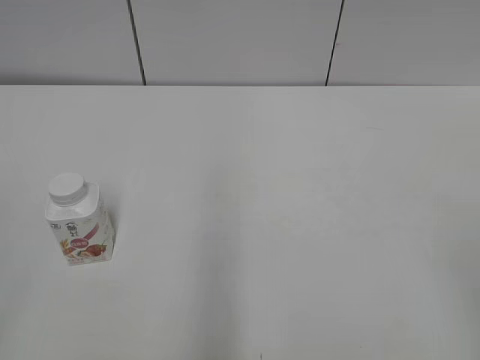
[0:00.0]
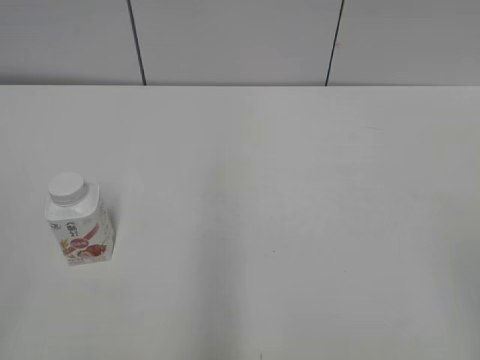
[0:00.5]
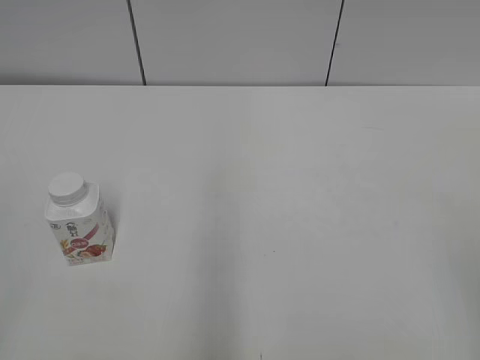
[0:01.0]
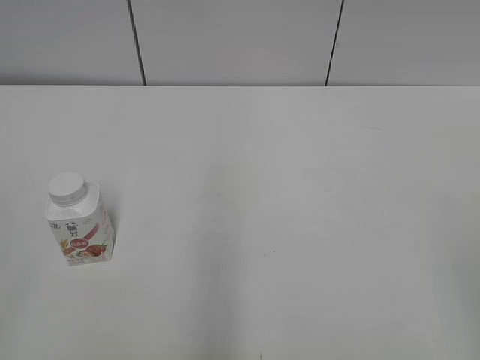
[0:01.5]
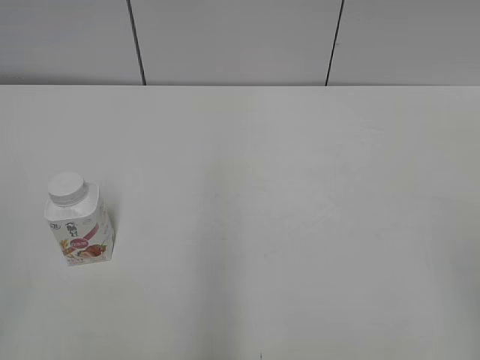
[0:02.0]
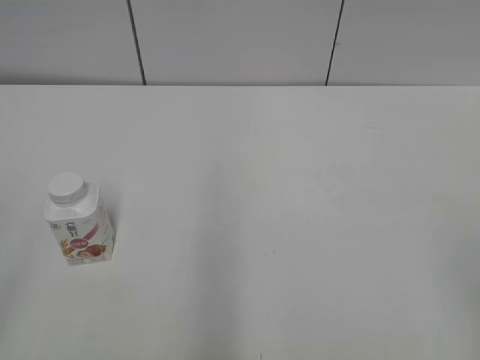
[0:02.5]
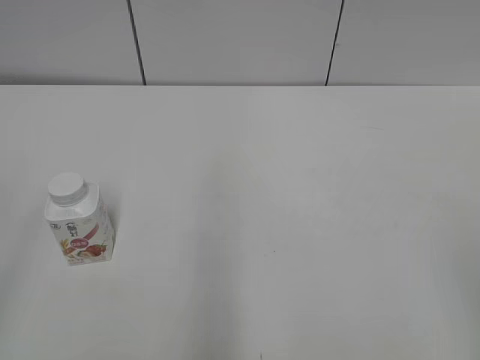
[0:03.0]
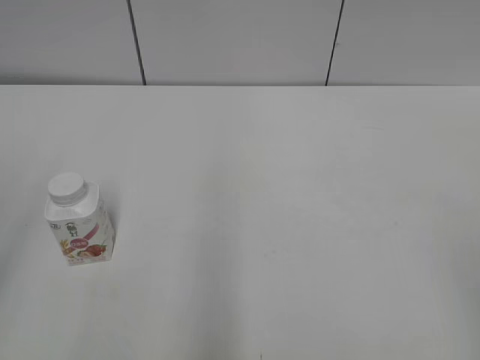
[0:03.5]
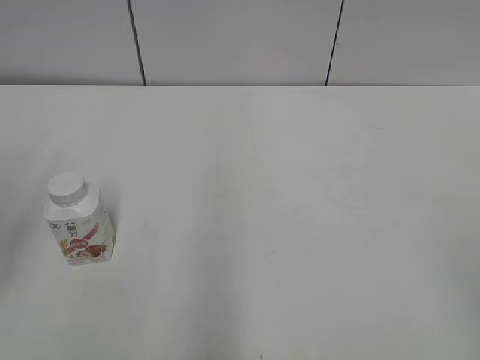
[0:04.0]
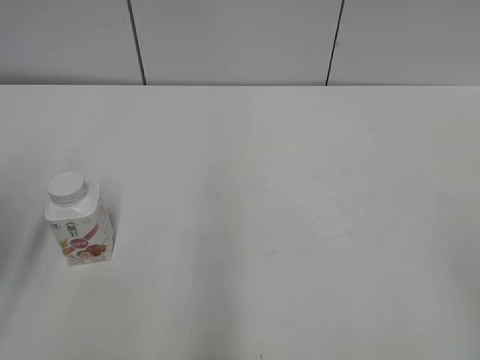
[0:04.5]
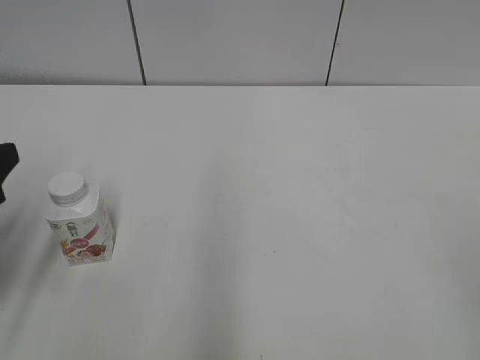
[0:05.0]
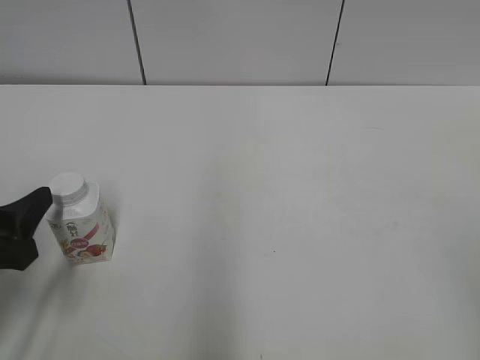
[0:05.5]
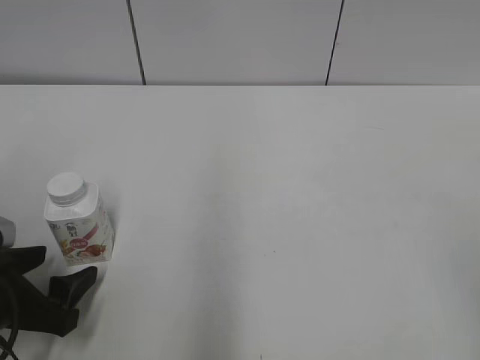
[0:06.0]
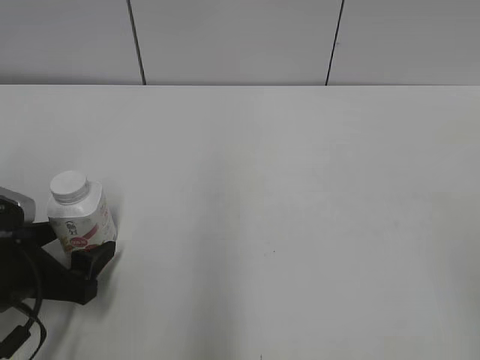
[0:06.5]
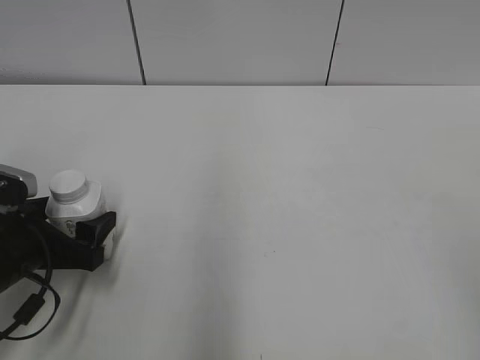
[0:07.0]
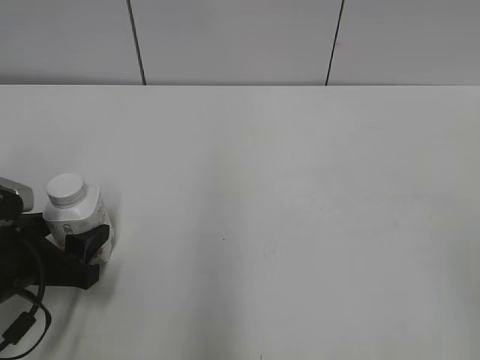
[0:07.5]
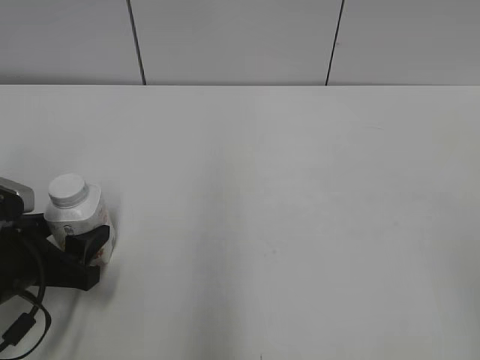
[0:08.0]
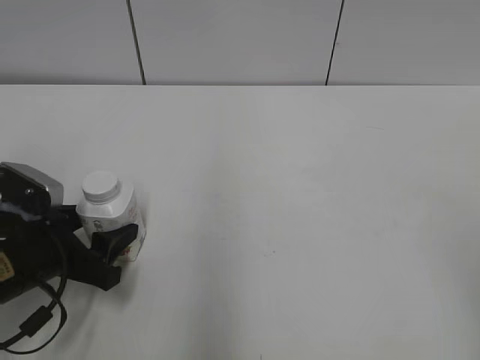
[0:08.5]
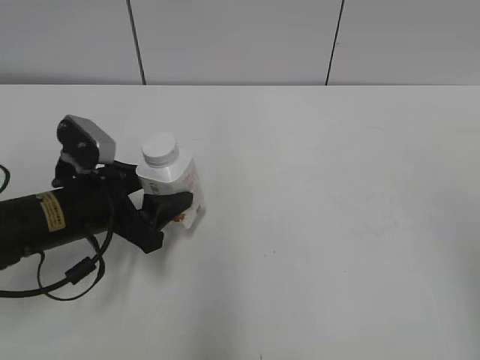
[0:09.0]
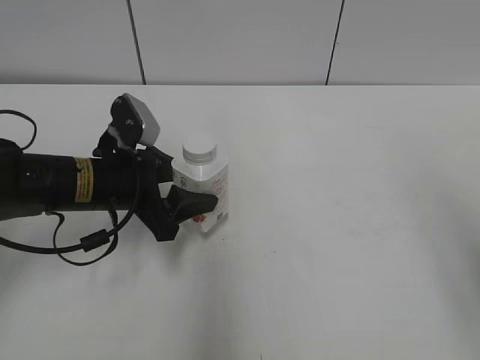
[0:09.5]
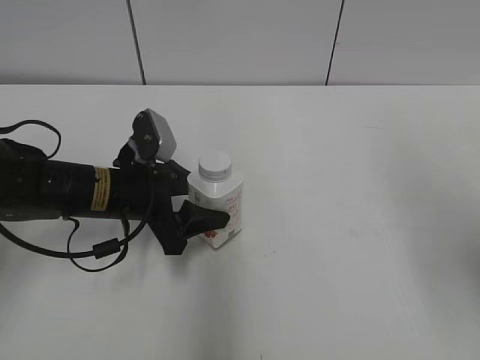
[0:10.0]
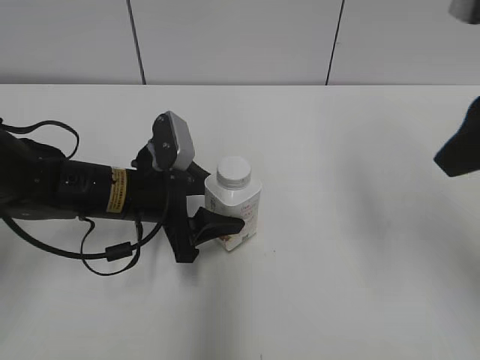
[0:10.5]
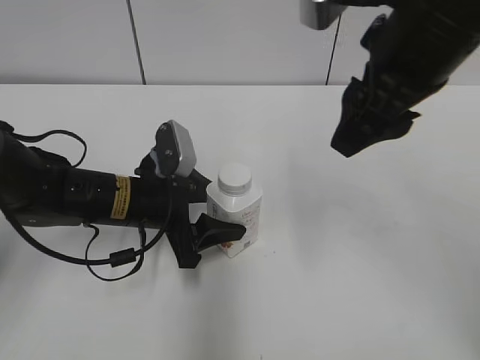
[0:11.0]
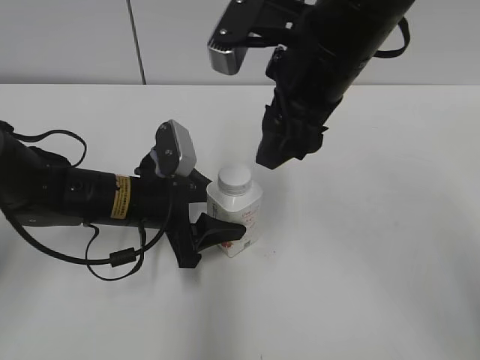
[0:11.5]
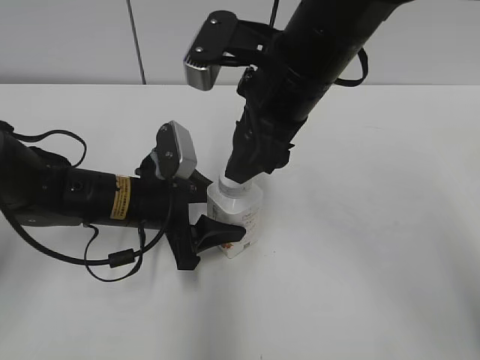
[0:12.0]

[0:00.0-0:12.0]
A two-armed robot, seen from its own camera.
Step, 0:00.0 to 0:08.0: Grab the Yili Changqing with the left hand.
Step, 0:08.5 to 0:11.0: Move the Yili Changqing from top to bottom.
0:04.0 to 0:06.0: The left gripper shifts some 20 cm downward.
0:06.0 to 0:08.0: There are only small adjustments of the grippers.
0:08.0 to 0:10.0: The left gripper shifts some 15 cm forward and to the right. Meanwhile the right gripper travels forward and upward by about 15 cm.
0:10.0 to 0:12.0: The right gripper travels to the left and forward by about 25 cm, and closes up.

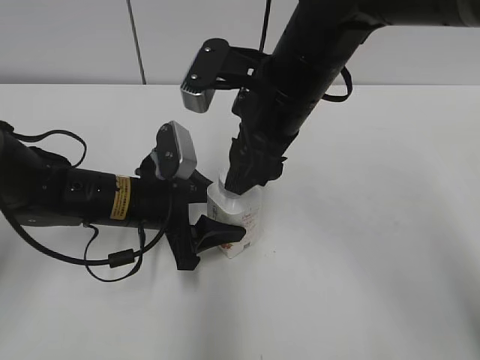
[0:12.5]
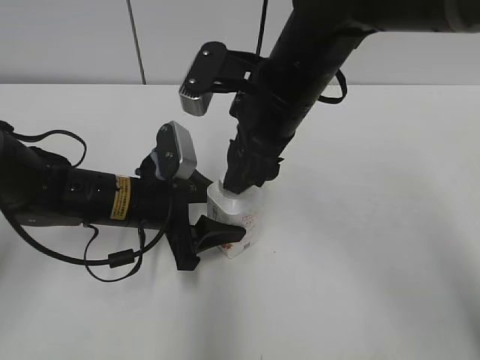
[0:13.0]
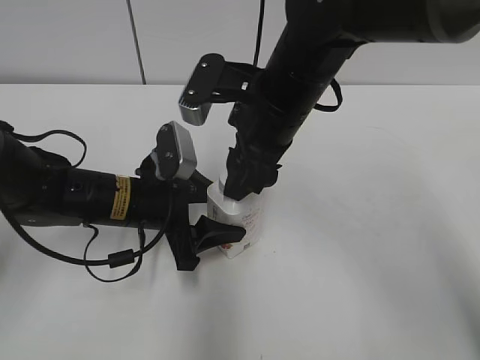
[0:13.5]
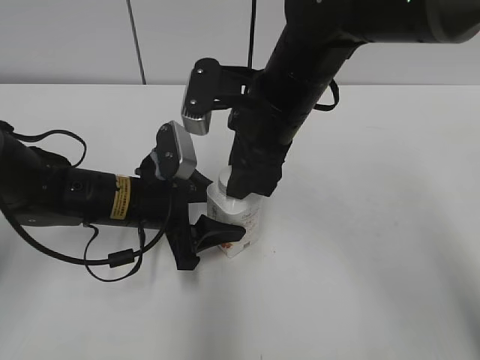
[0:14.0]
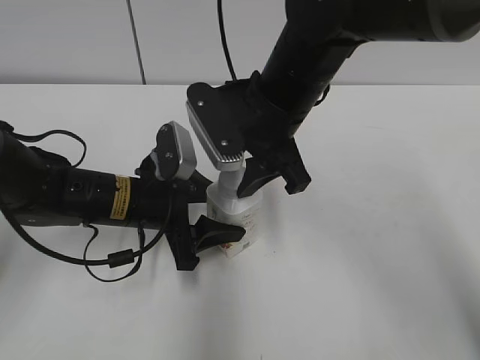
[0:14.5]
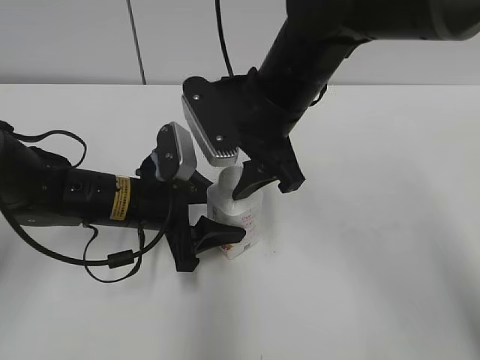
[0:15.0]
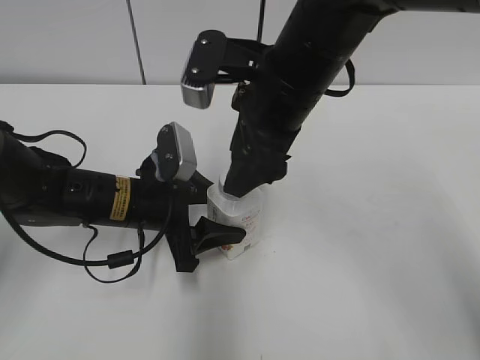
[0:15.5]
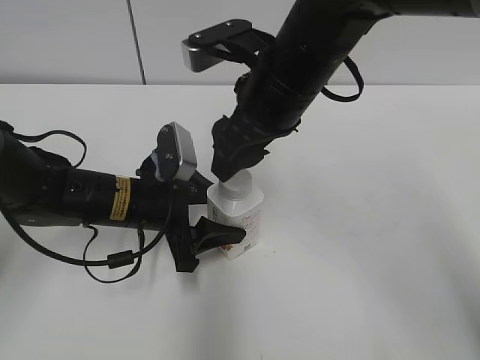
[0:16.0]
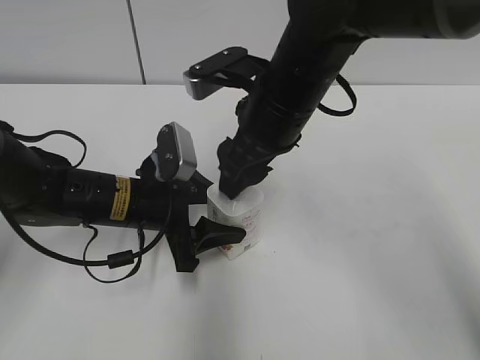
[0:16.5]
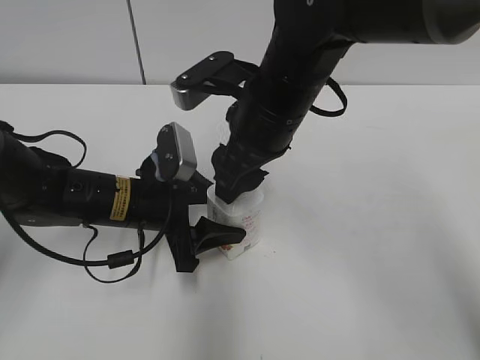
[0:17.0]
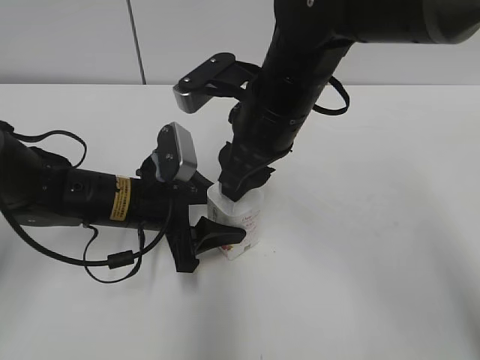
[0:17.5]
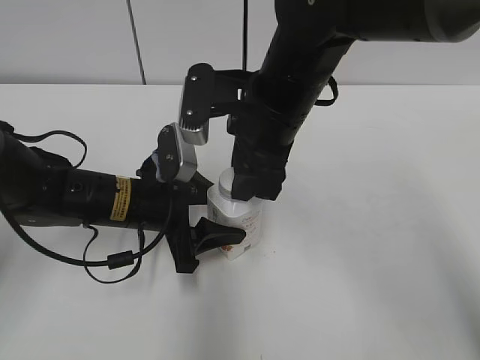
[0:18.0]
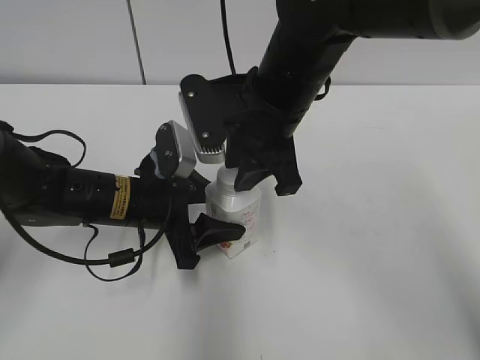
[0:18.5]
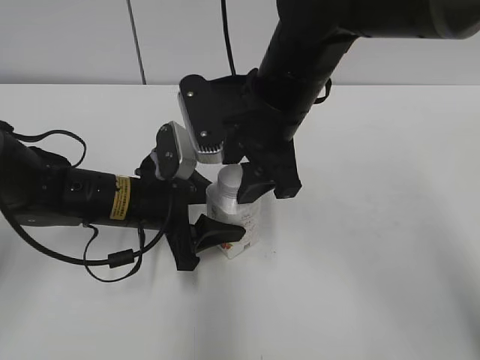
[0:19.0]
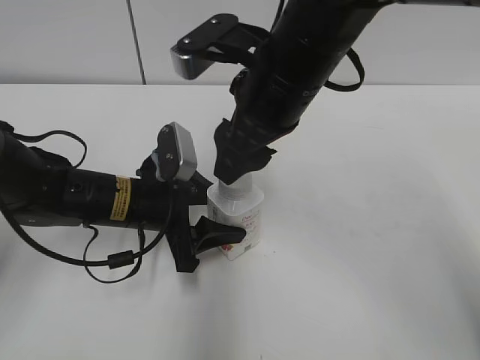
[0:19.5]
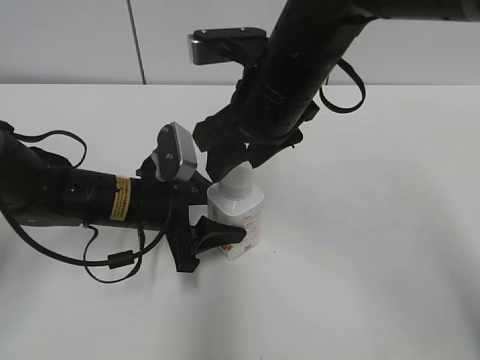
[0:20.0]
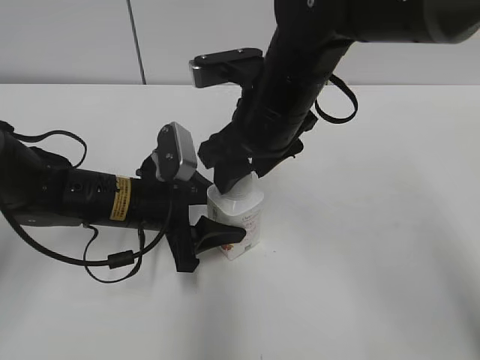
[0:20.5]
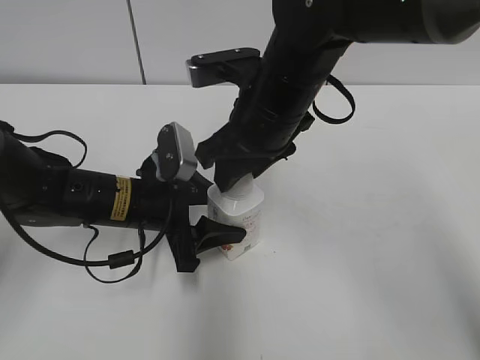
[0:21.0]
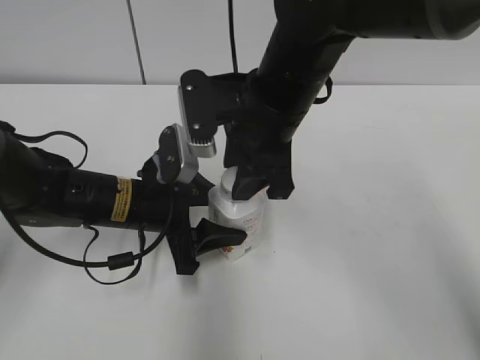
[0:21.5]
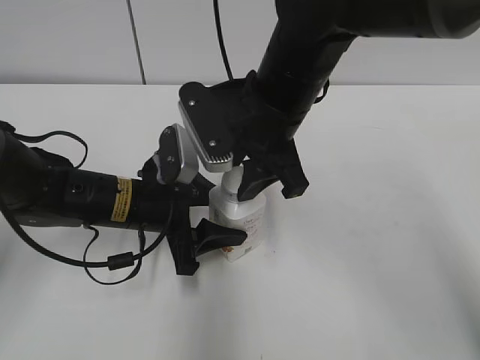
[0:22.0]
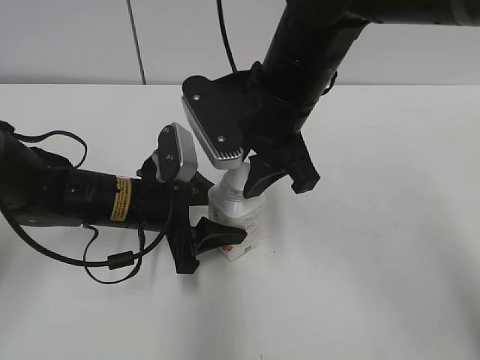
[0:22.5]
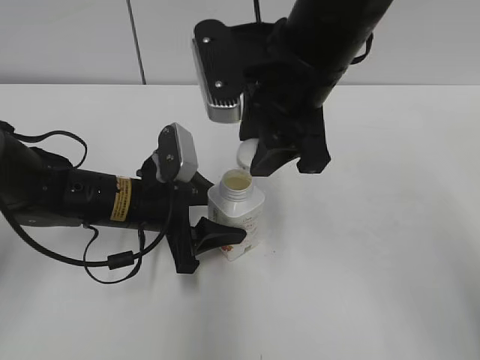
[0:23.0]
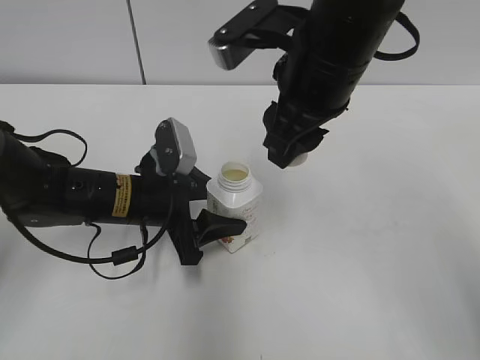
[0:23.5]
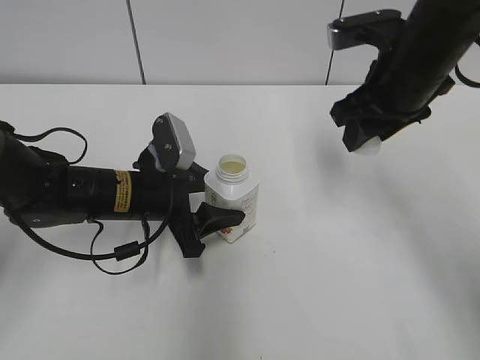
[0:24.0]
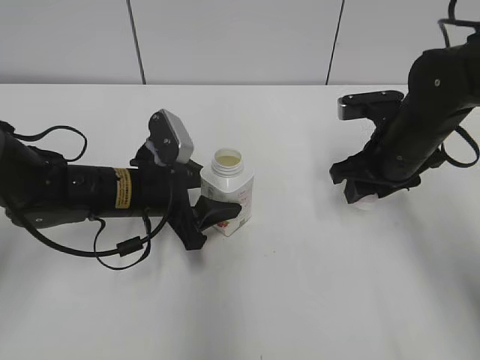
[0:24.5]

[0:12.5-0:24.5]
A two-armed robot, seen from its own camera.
Step, 0:12.5 to 0:22.0: Twist the bottle cap with the right hand.
0:12.5 to 0:14.5: The right gripper closes up.
0:14.5 to 0:16.5: The right gripper opens up.
0:16.5 to 0:18.5: The right gripper closes.
0:18.5 to 0:20.5: The right gripper opens up.
0:20.5 to 0:22.5: The right gripper closes.
0:22.5 to 0:24.5: The right gripper goes some 20 cm to the right and downward.

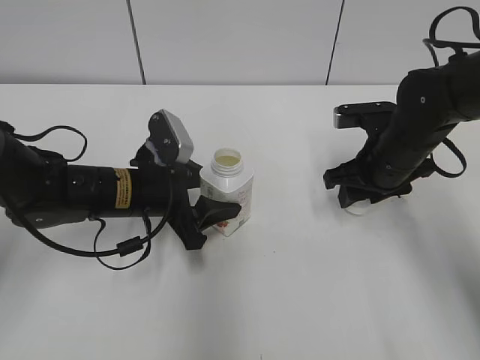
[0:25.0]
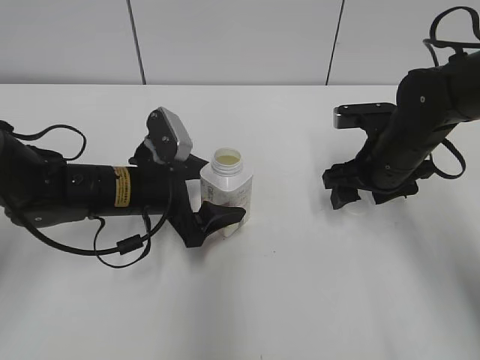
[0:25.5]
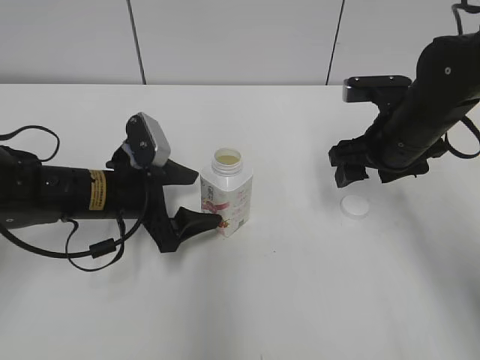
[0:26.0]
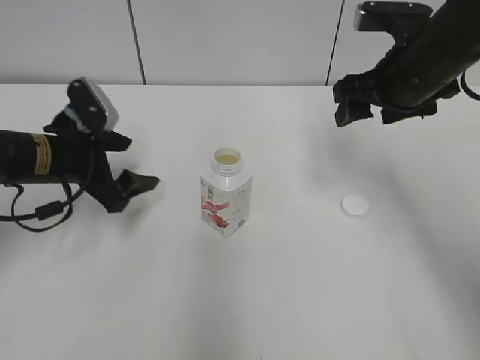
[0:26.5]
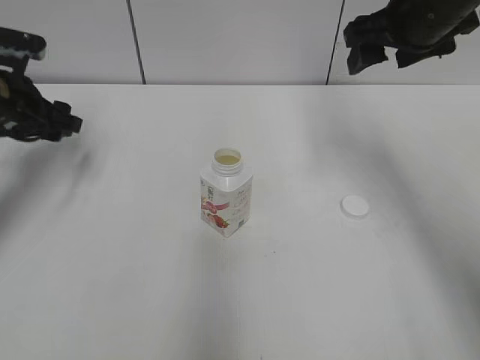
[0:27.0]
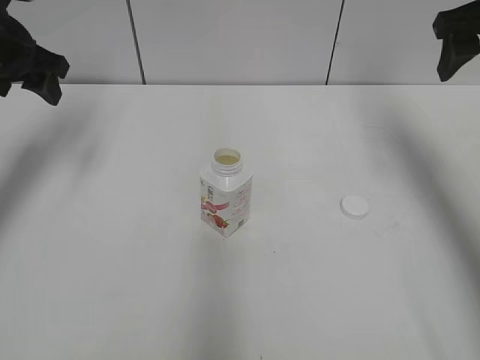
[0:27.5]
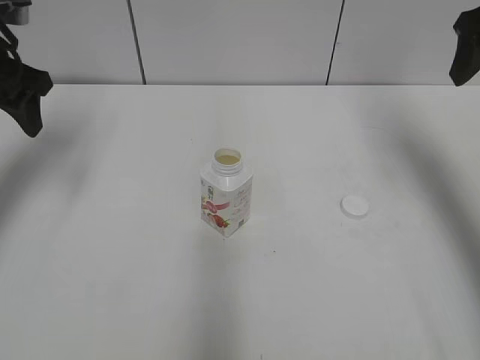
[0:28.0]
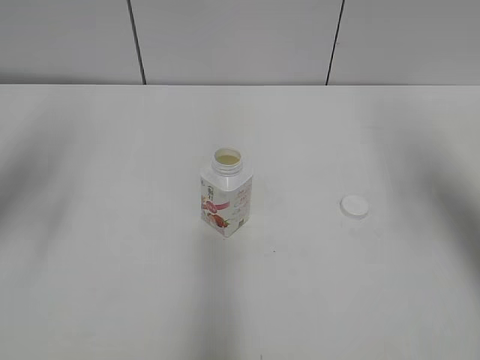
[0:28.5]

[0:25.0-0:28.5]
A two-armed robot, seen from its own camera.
0:25.0 to 0:27.0: The right gripper travels upward by approximately 15 cm, and opens. Meanwhile the left gripper moves to the left, upward and forward, about 20 cm.
0:27.0 to 0:28.5: The right gripper goes some 15 cm backward, to the right and upward, while the left gripper goes some 15 cm upward and backward.
